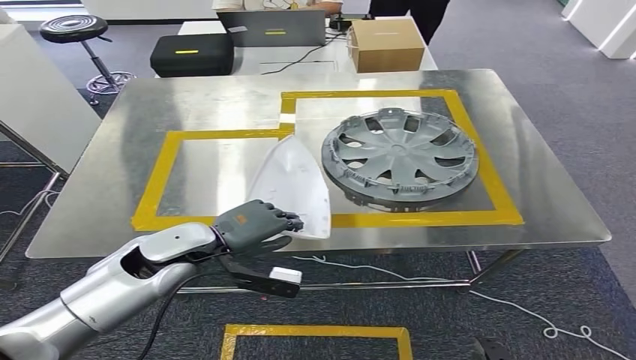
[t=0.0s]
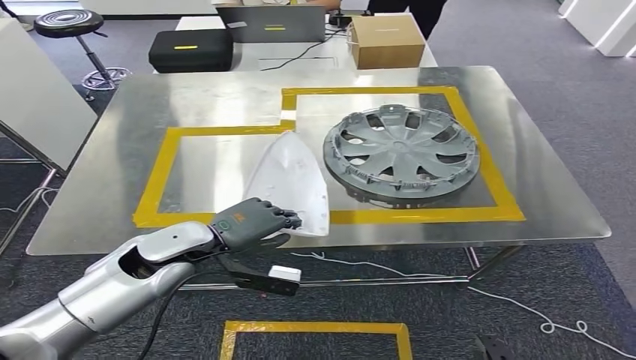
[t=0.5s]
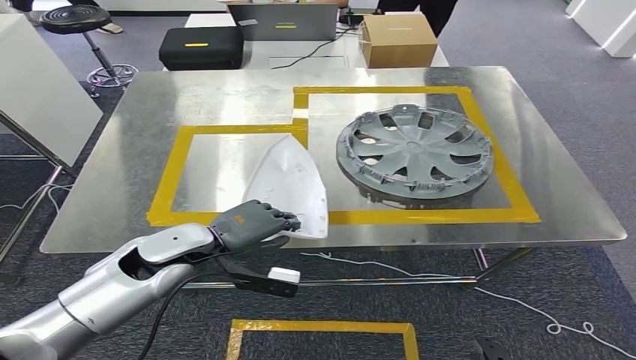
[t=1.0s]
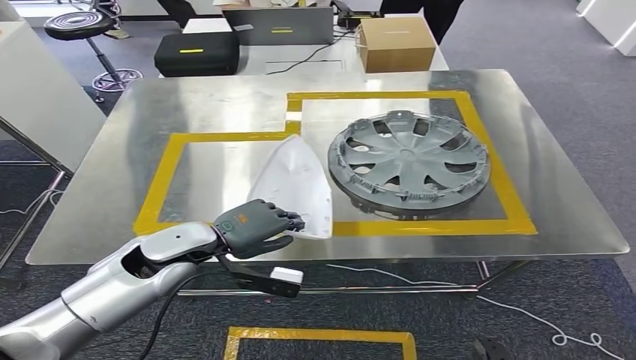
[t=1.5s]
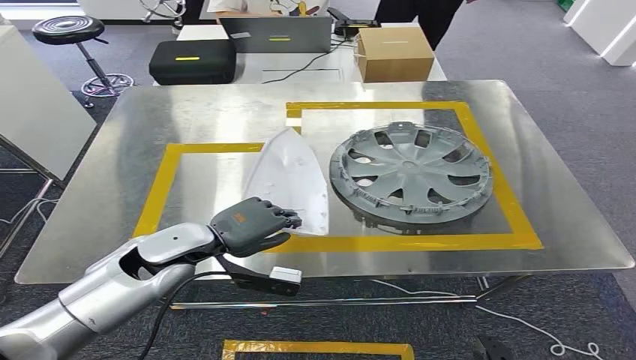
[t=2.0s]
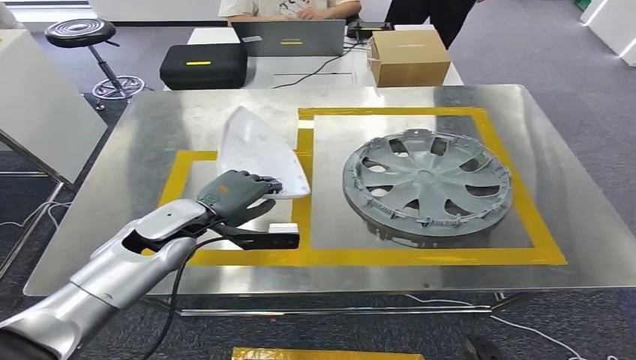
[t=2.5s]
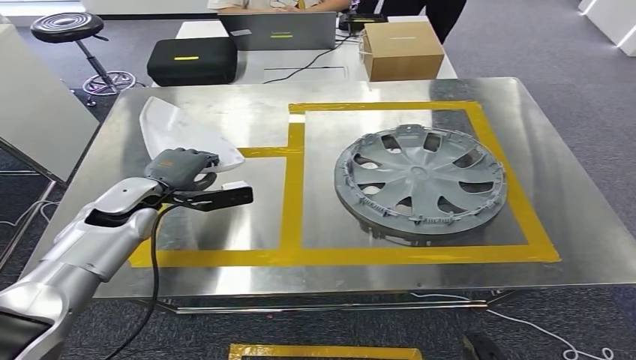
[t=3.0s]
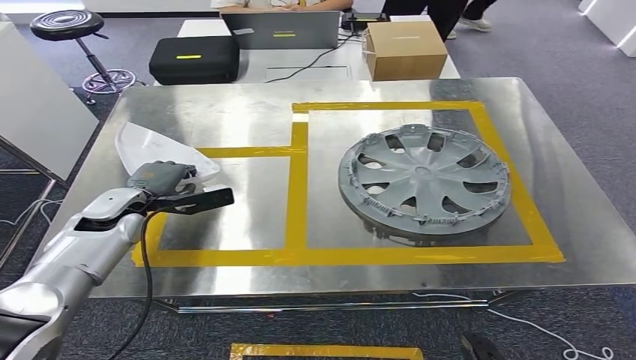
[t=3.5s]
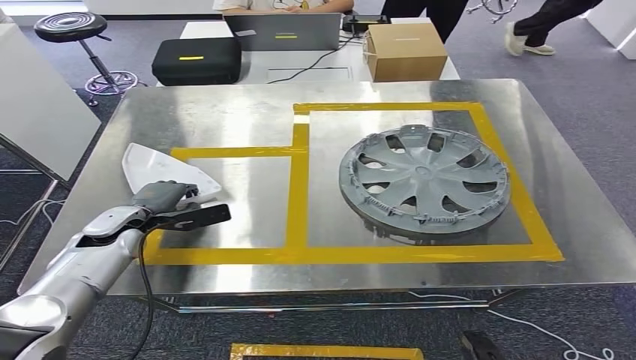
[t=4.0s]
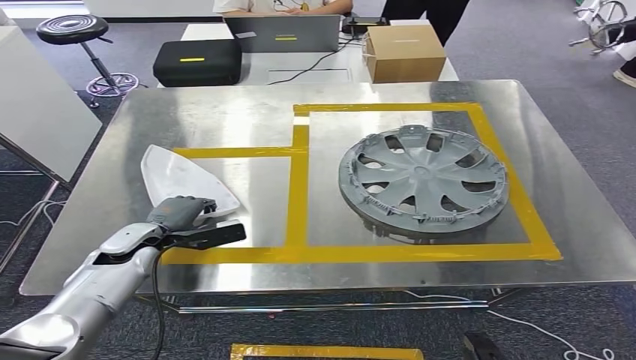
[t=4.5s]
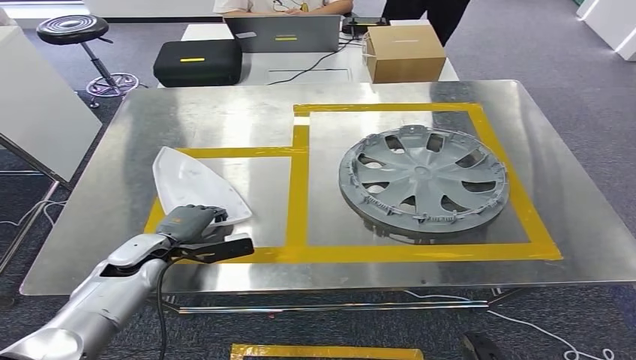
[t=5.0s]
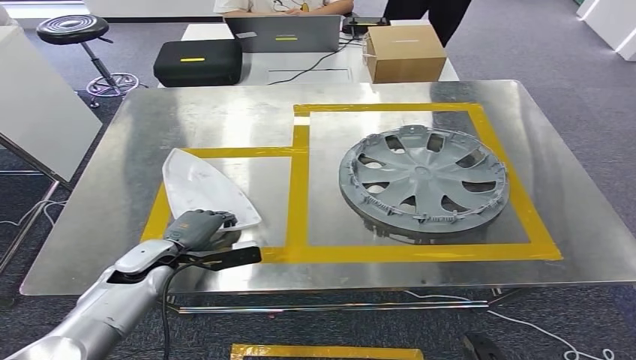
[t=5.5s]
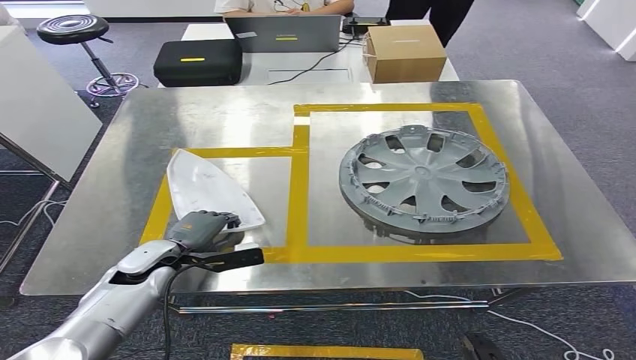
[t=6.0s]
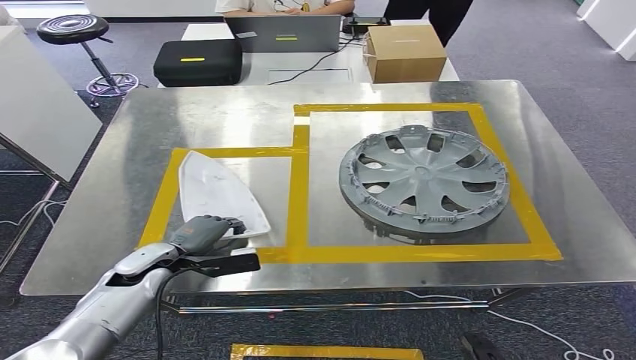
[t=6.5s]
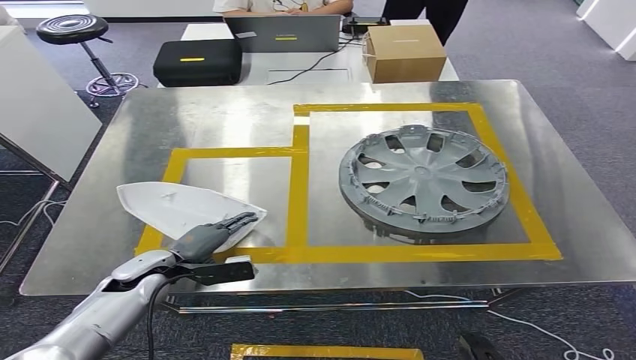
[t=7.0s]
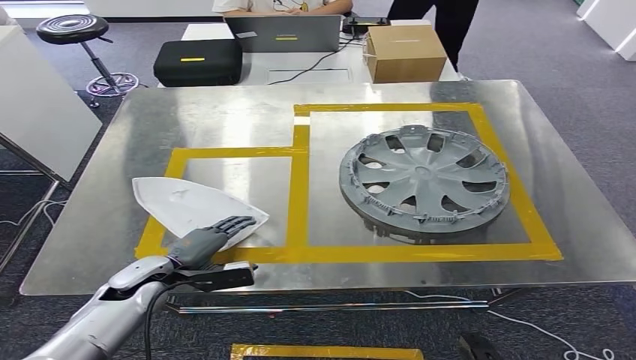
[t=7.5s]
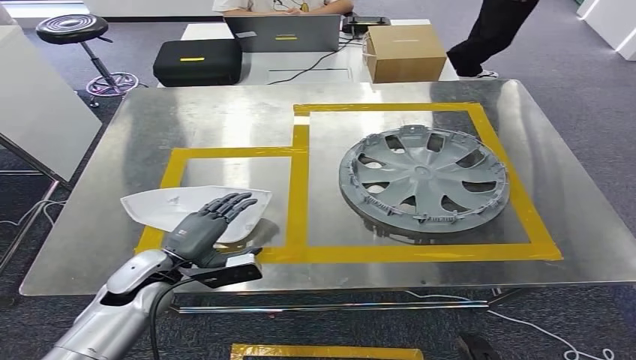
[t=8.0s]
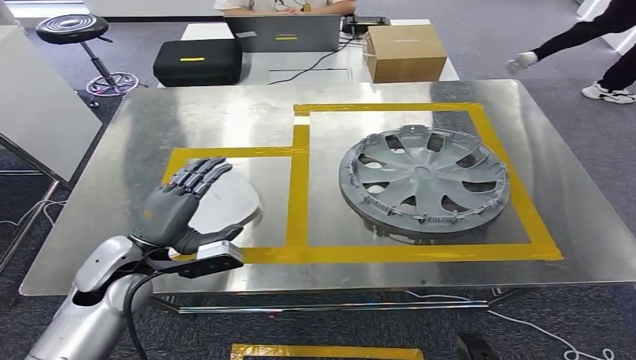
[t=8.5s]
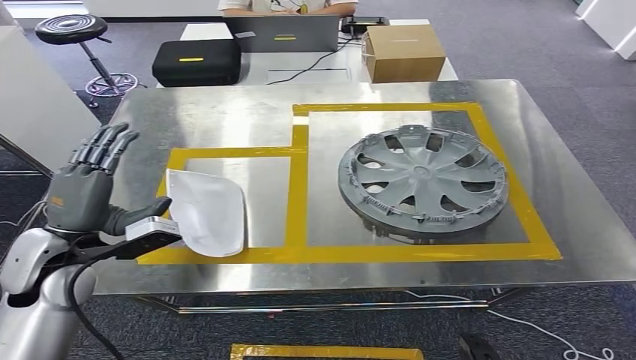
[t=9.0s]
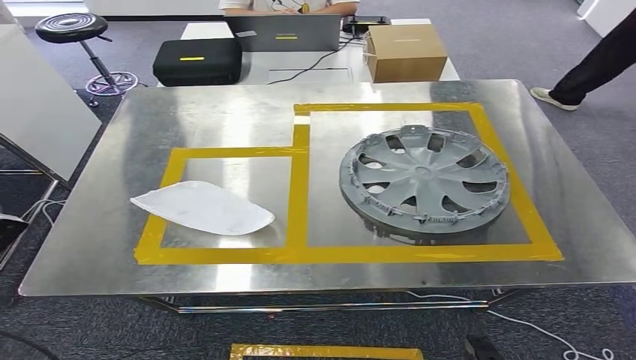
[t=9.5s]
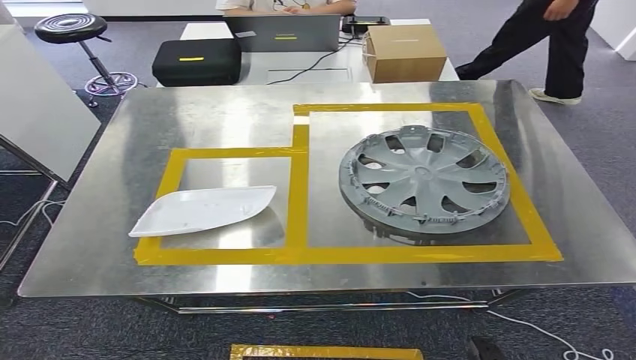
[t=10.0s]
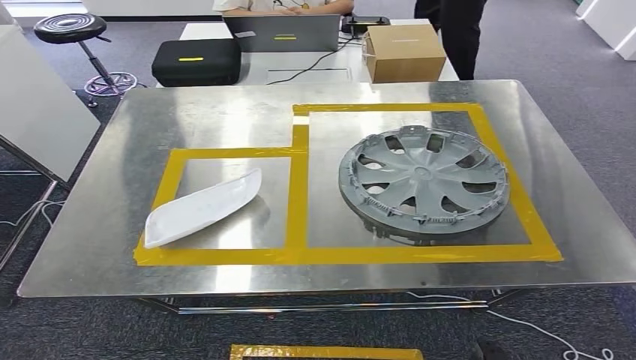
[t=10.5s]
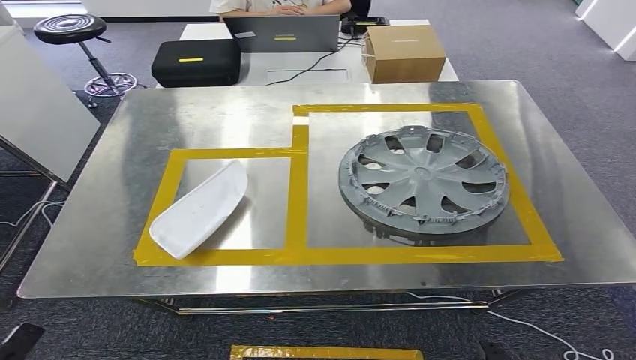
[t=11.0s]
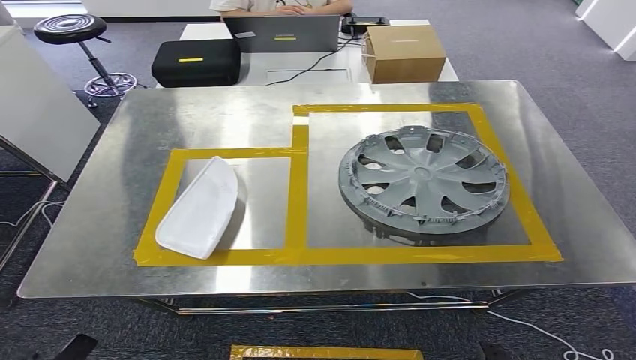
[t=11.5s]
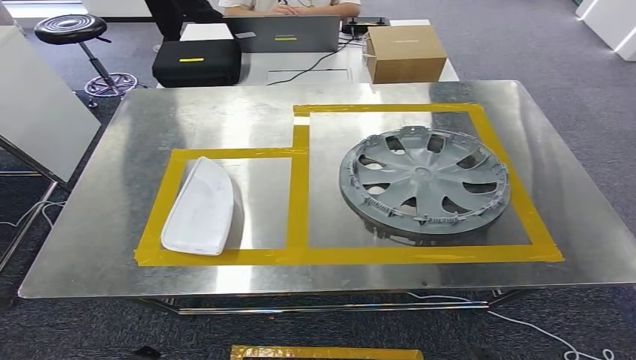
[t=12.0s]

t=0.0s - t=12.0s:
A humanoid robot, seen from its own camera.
Step, t=0.0s - t=5.5s: Insert the small parts into the corresponding holes on the workbench.
t=4.0s - t=6.0s: The left hand moves backward, roughly 5 cm.
t=6.0s - t=8.0s: The hands move only a little.
t=8.0s - t=10.0s: The left hand travels to the left and backward by roughly 35 cm.
t=10.0s - t=12.0s: The left hand travels to the right, downward and backward by roughly 30 cm.

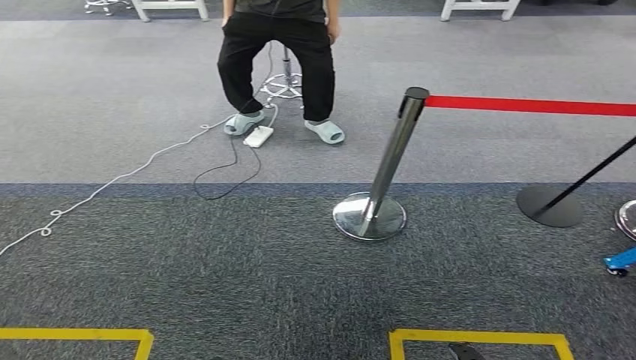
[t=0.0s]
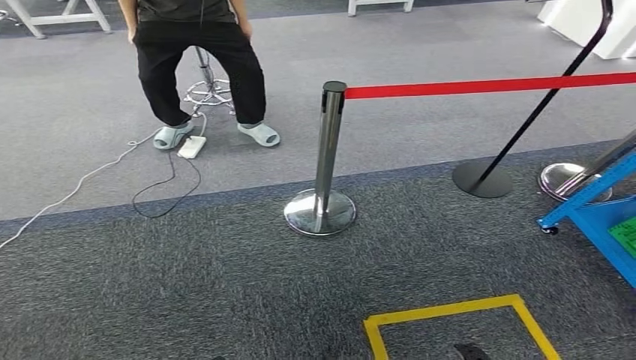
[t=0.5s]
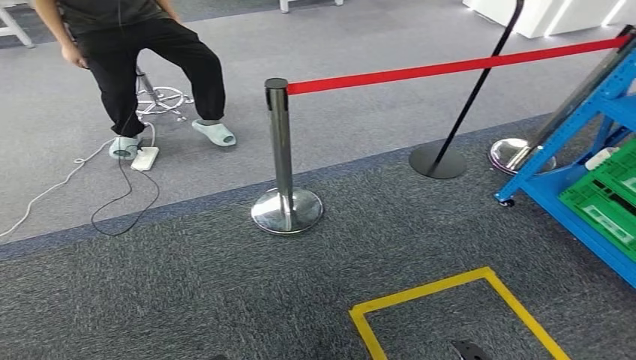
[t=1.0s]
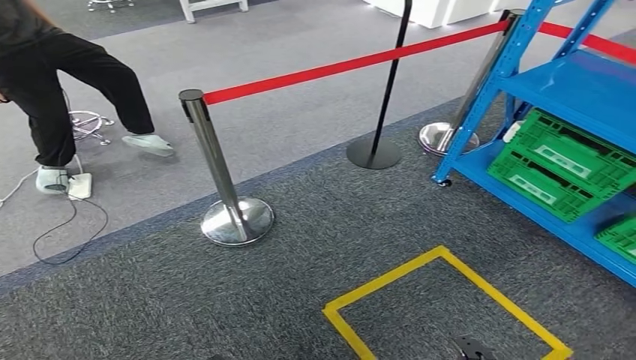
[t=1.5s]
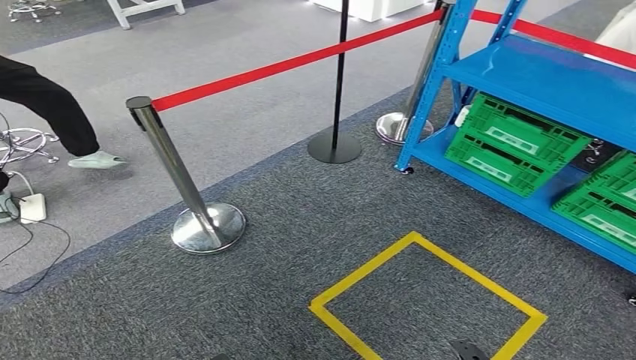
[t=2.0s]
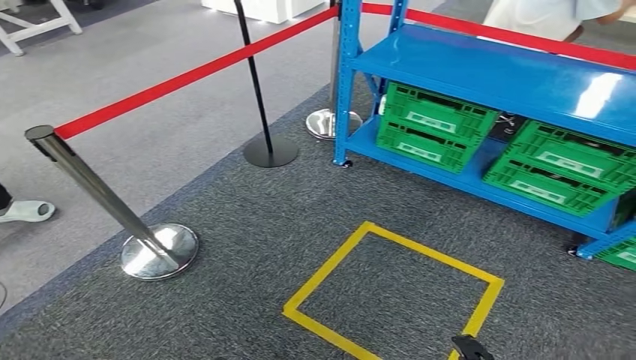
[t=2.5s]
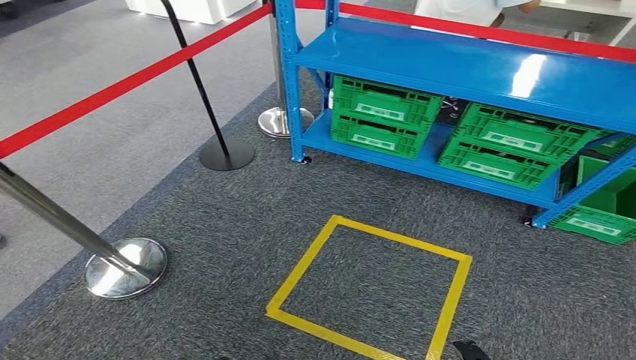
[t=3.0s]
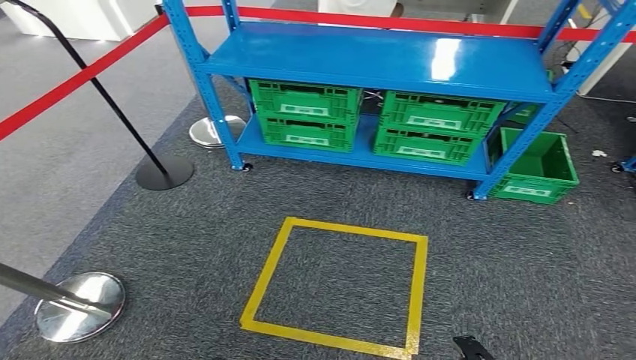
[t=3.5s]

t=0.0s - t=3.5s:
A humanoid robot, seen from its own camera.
Step, t=0.0s - t=3.5s: Move to the initial position at the workbench.

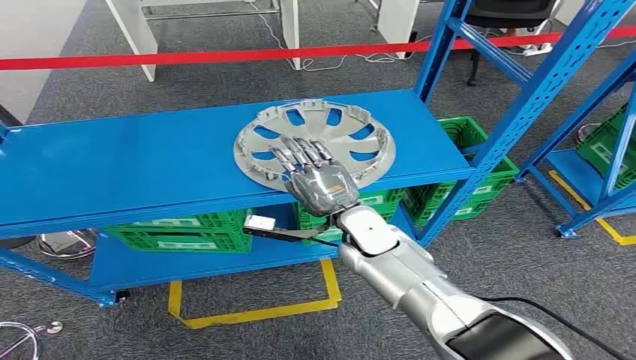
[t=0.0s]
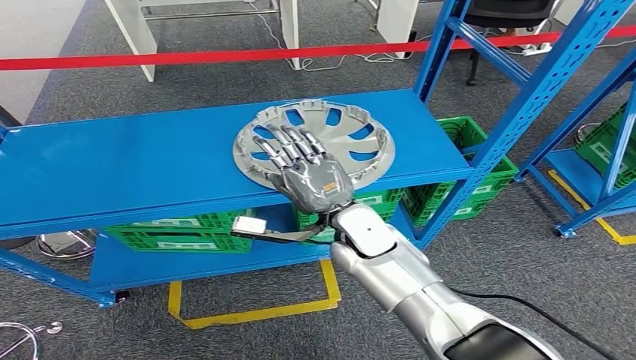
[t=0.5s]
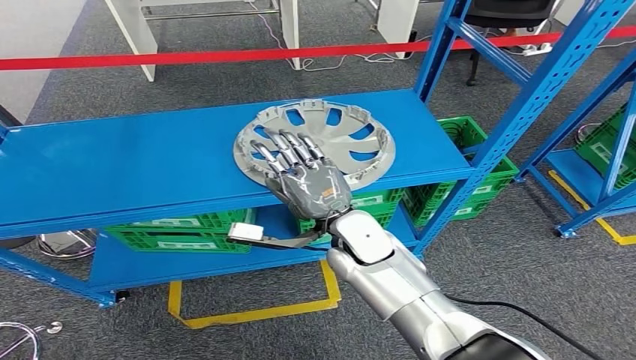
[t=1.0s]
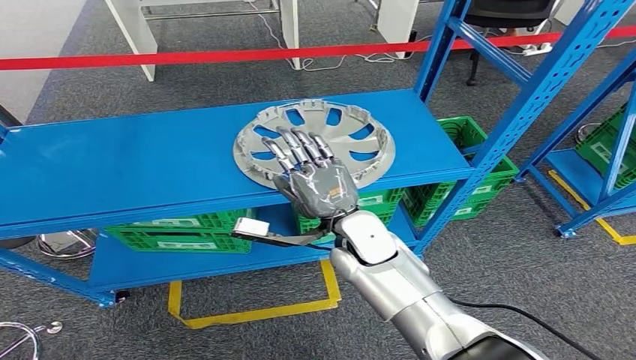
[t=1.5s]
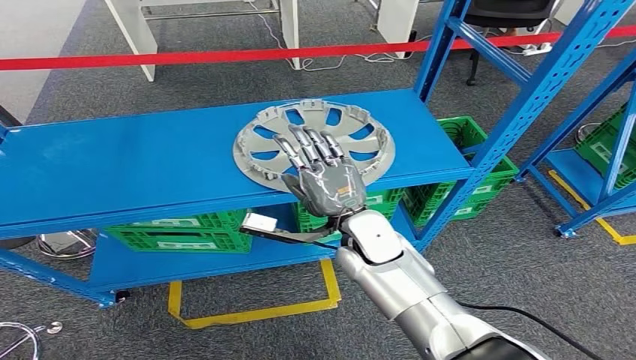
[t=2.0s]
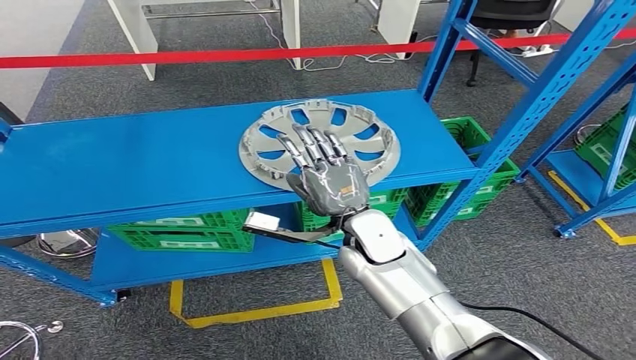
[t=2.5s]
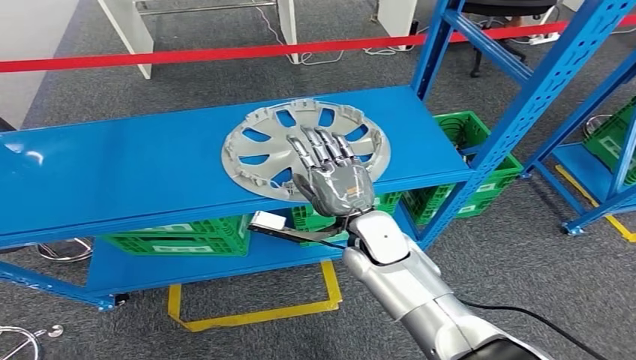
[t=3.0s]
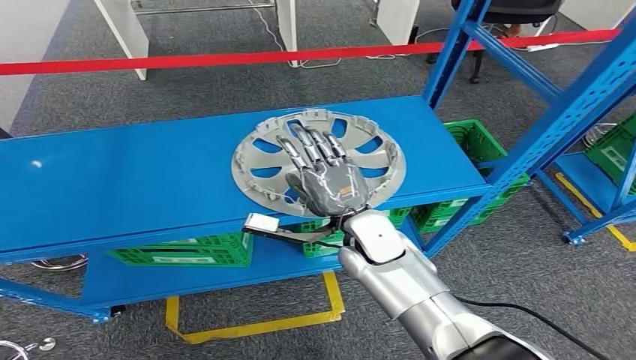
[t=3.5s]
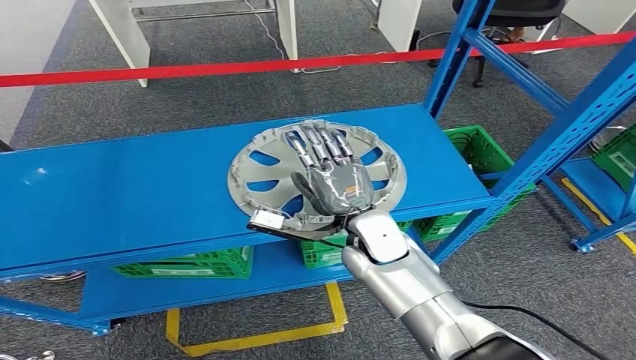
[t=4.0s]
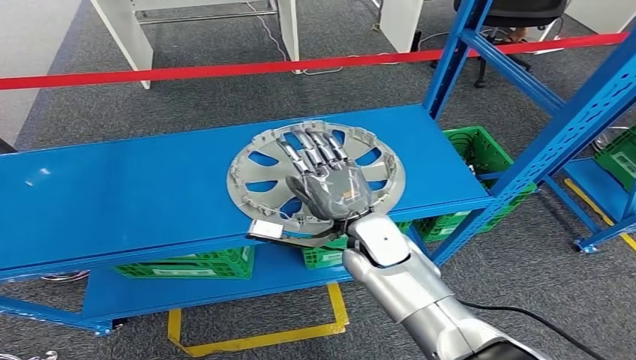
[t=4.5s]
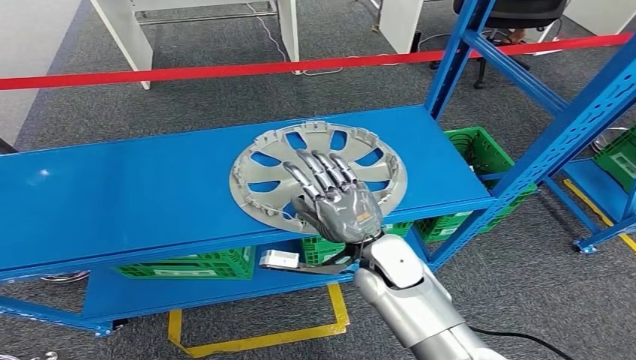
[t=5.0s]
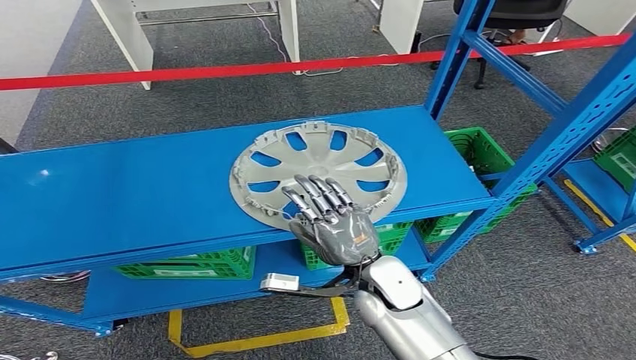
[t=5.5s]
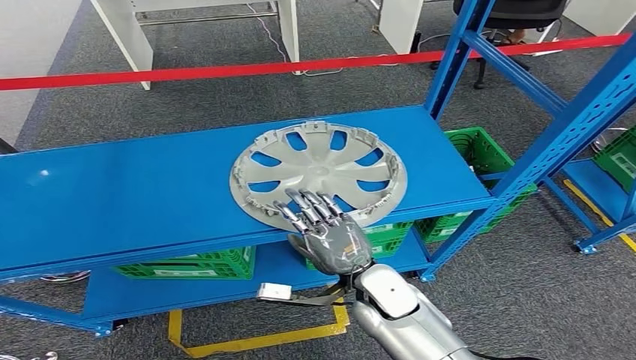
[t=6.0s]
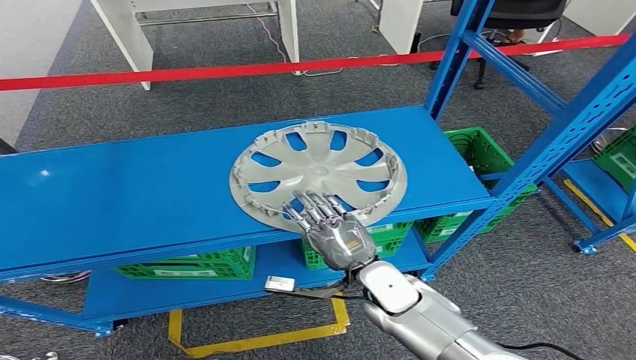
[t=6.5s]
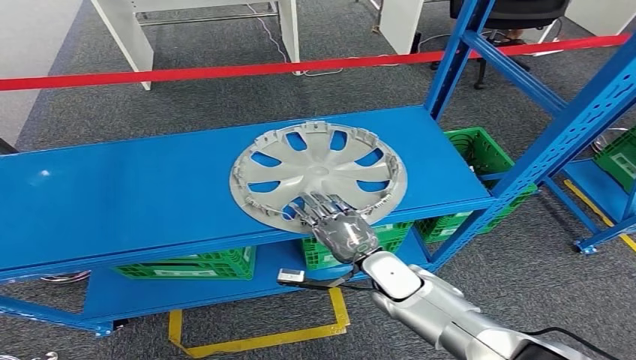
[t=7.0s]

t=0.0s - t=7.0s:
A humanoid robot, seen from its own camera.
t=5.0s - t=7.0s: The right hand shifts approximately 10 cm downward.
